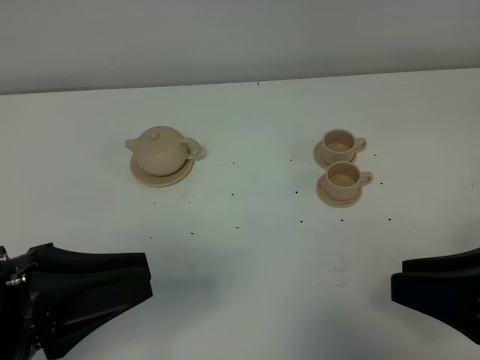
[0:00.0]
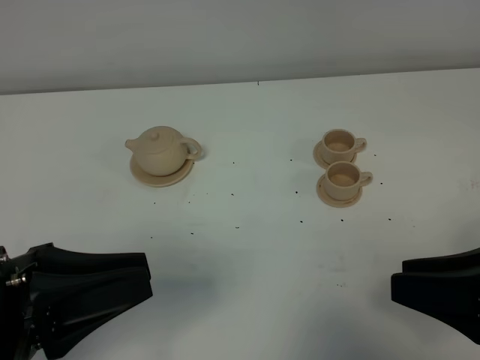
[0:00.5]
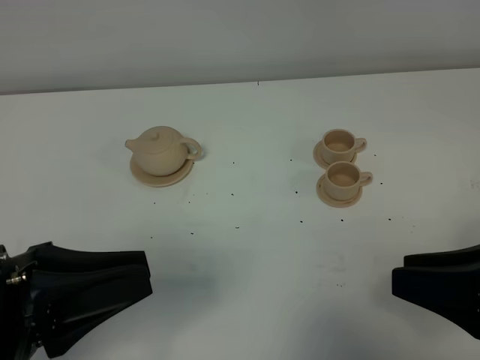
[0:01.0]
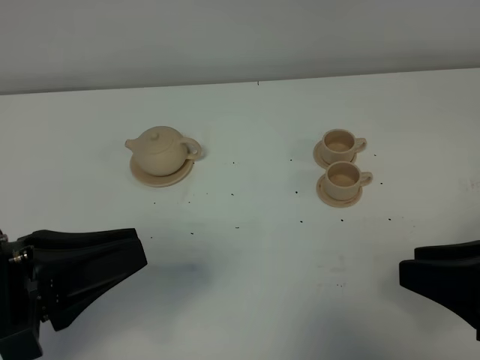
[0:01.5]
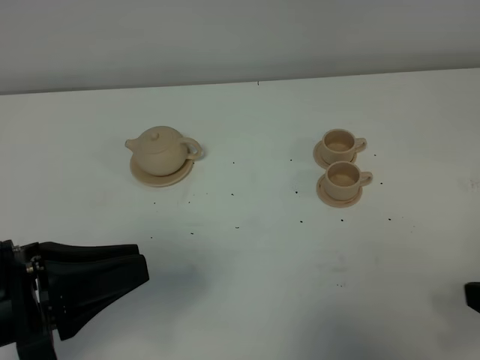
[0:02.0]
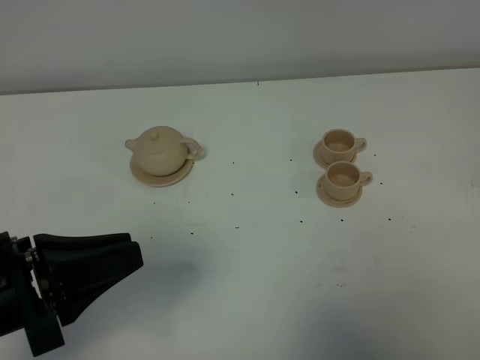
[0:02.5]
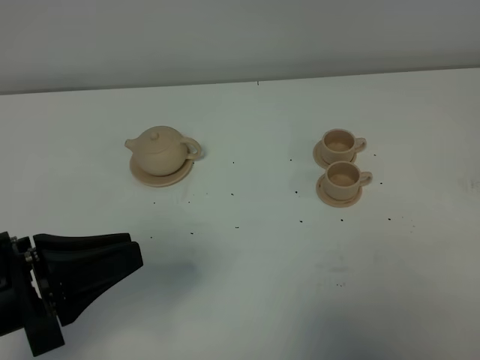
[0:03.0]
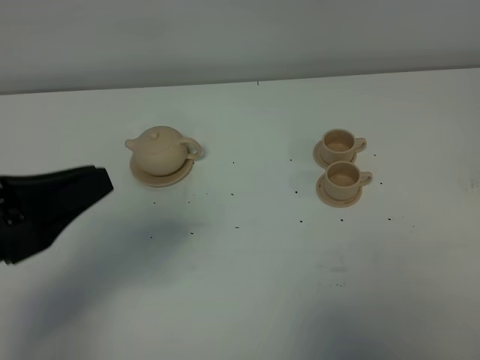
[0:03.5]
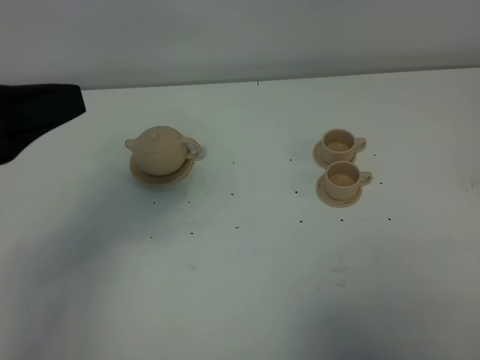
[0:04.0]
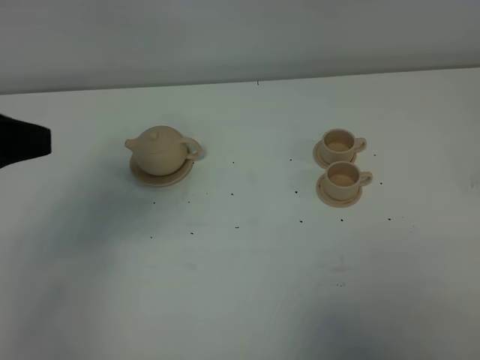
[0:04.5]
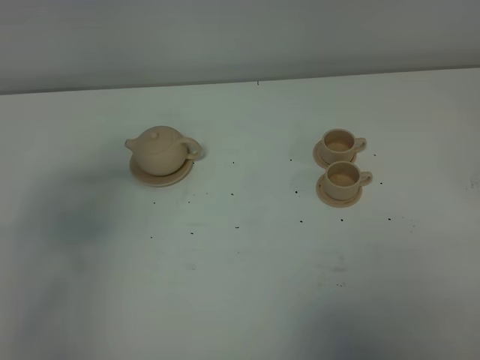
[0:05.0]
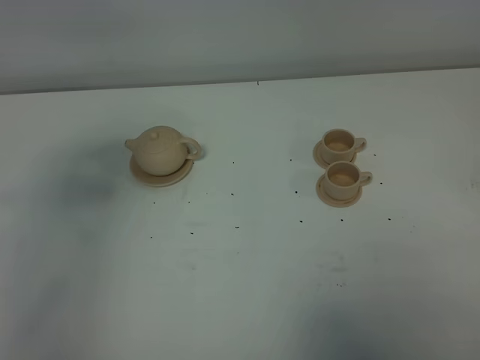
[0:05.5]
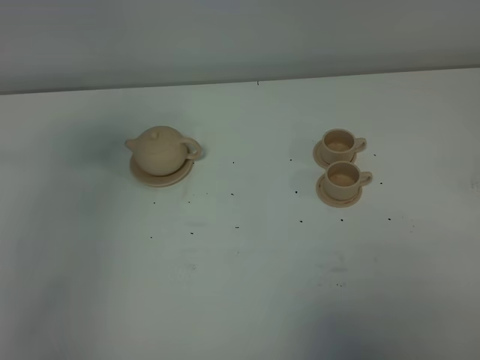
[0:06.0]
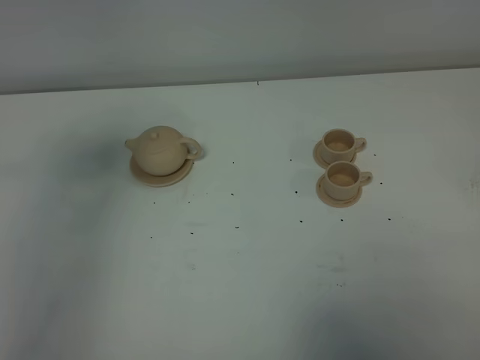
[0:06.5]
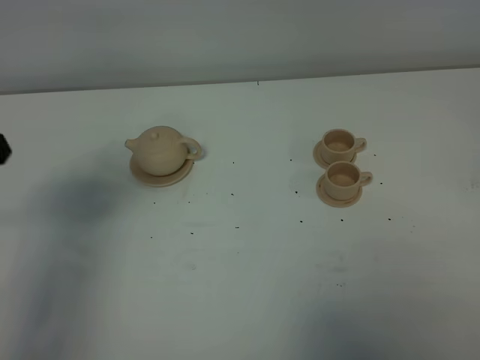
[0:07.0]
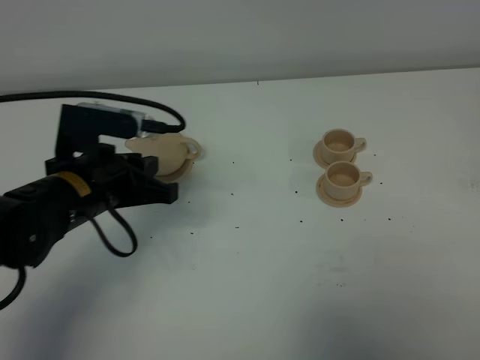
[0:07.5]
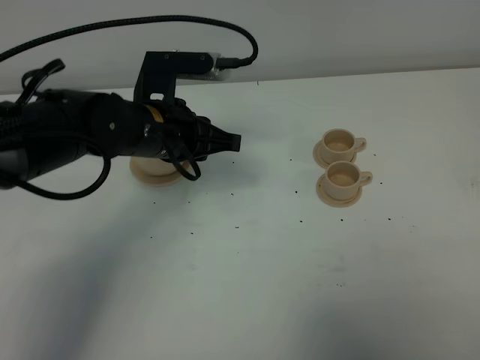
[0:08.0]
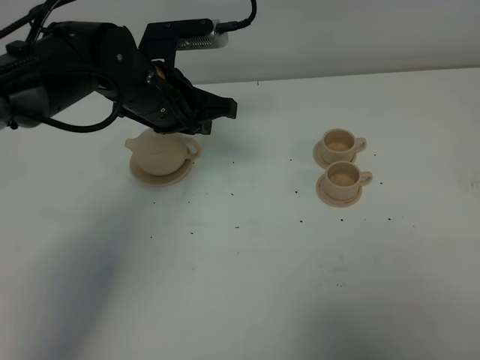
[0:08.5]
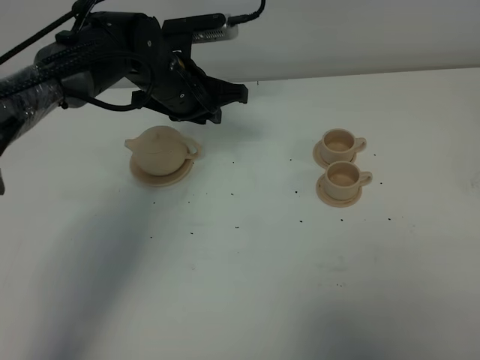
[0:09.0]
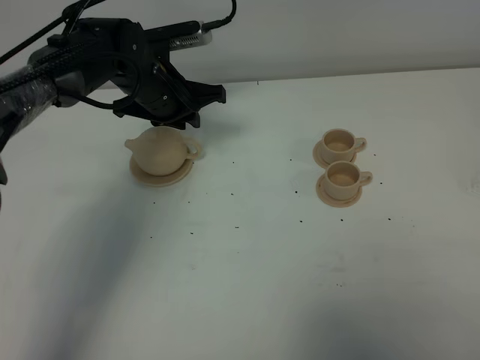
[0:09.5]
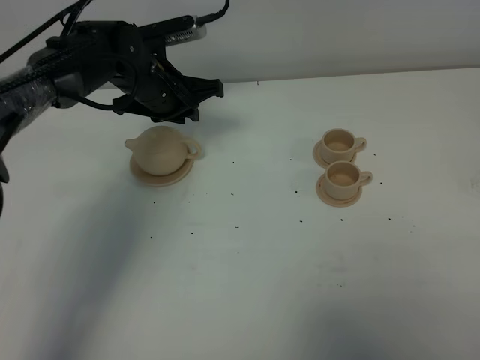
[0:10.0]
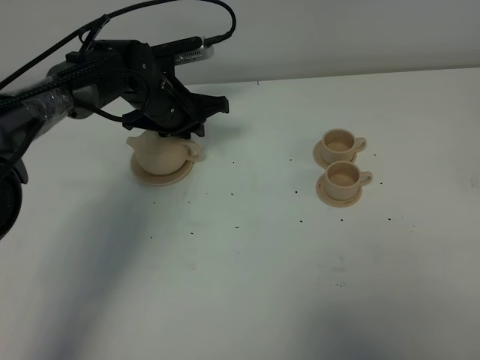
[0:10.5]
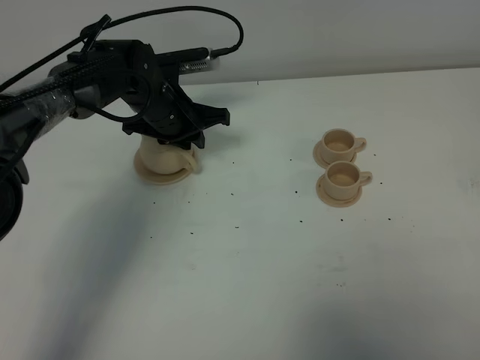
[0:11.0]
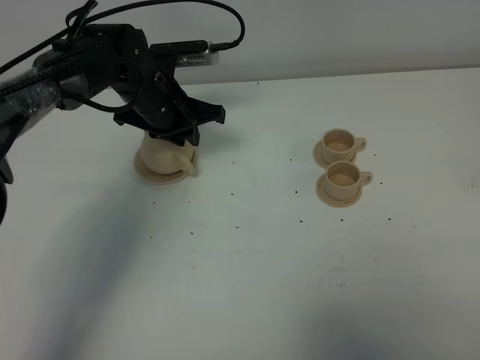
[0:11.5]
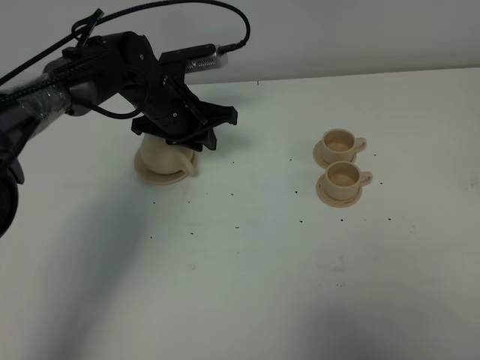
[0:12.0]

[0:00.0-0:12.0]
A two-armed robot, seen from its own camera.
Task of the whole recording: grasp the brown teapot and pour the tea into the two brown teacups one by one, put the brown teapot back in its original place.
2.0 to 4.0 s: The left gripper heads upward and forward, covering some 15 cm. The right gripper heads backward, covering about 10 cm.
4.0 to 6.0 s: The left gripper shifts some 10 cm upward and to the left.
6.0 to 8.0 s: The left gripper shifts approximately 30 cm downward, to the right and forward.
8.0 to 10.0 s: The left gripper travels forward by approximately 10 cm.
10.0 to 12.0 s: There are only small adjustments of the grippers.

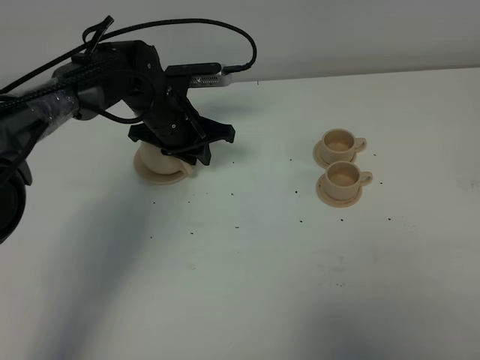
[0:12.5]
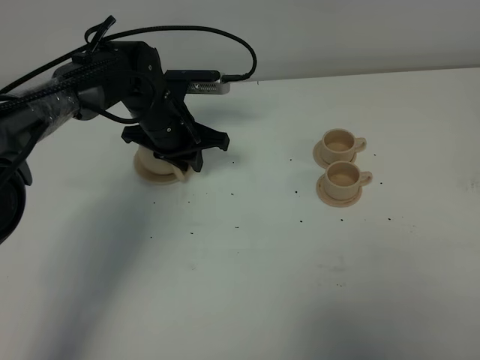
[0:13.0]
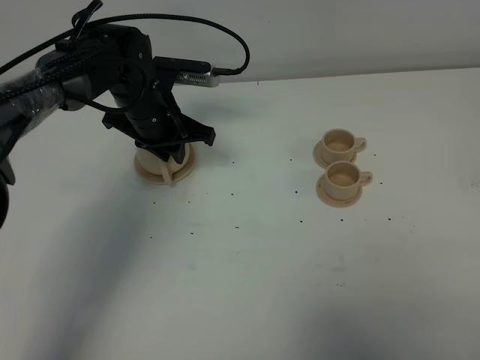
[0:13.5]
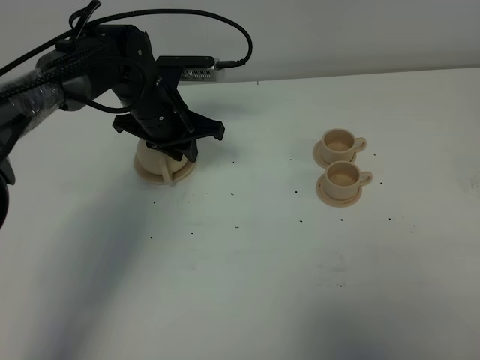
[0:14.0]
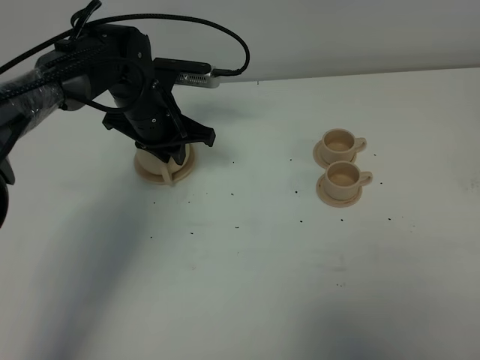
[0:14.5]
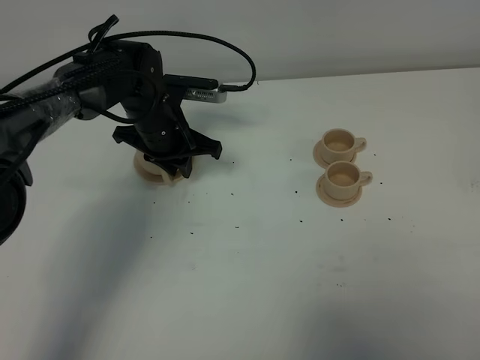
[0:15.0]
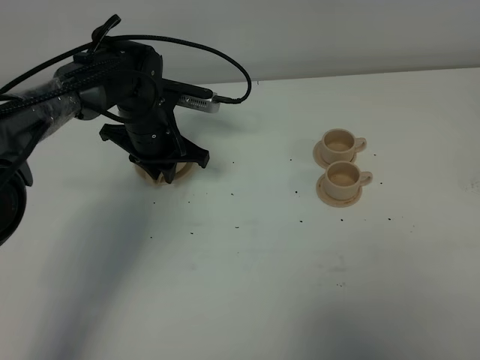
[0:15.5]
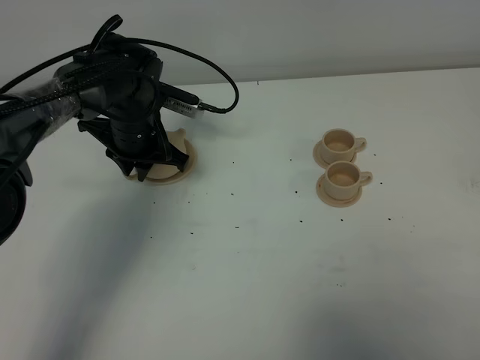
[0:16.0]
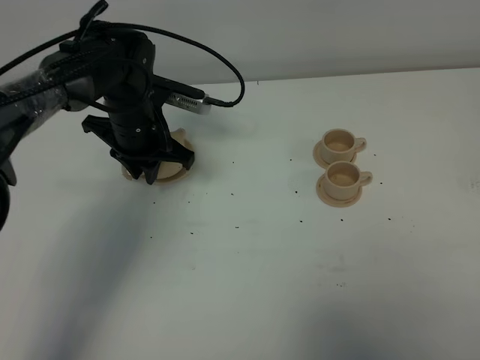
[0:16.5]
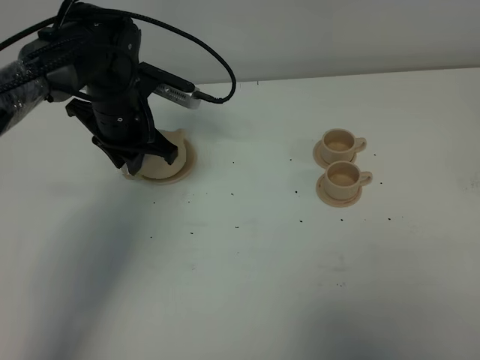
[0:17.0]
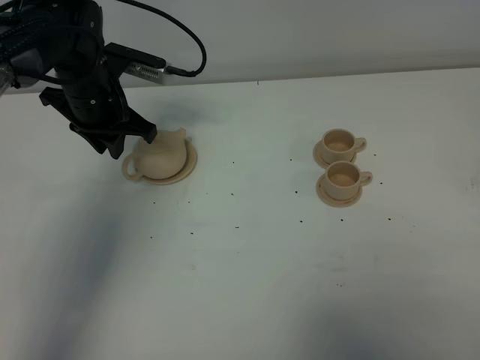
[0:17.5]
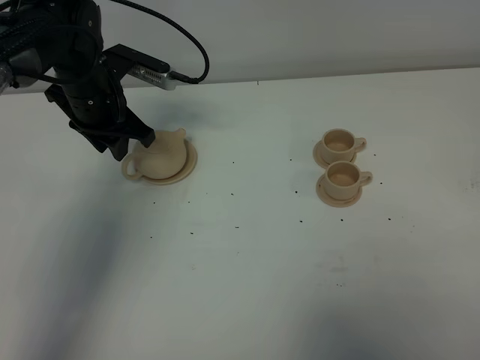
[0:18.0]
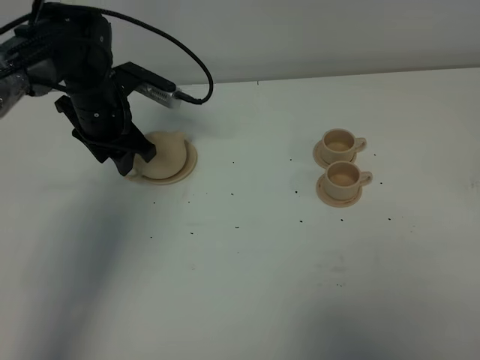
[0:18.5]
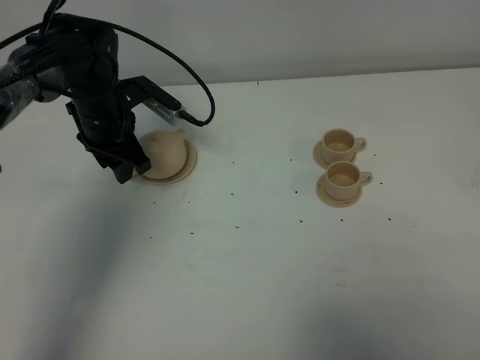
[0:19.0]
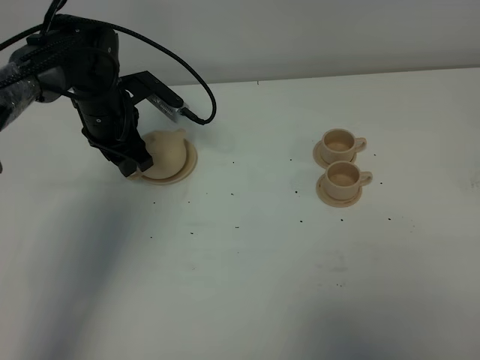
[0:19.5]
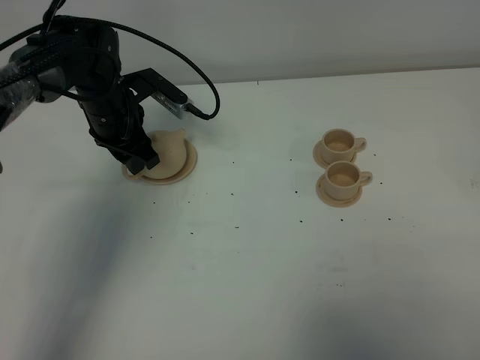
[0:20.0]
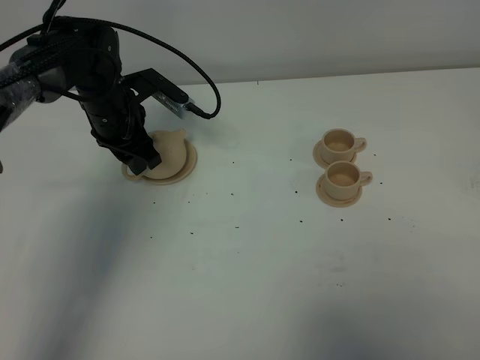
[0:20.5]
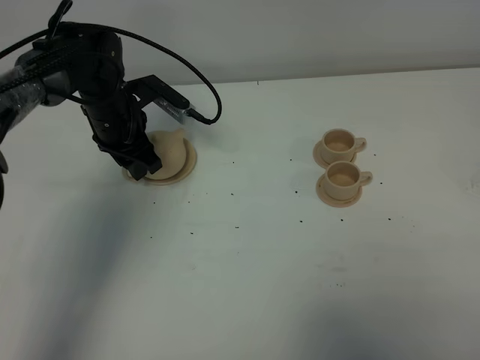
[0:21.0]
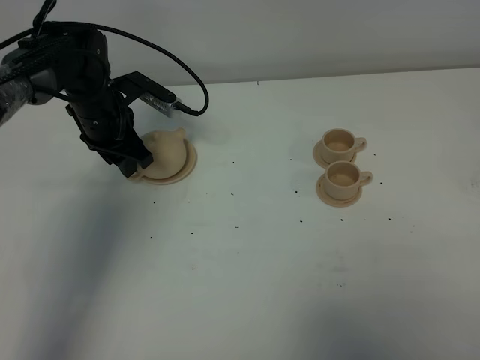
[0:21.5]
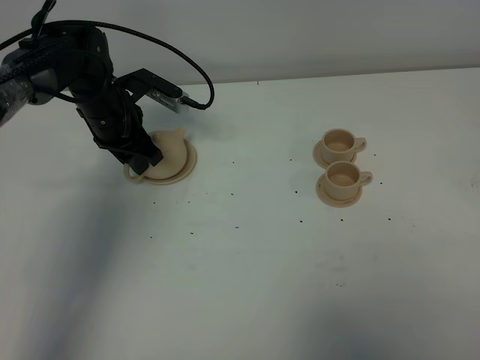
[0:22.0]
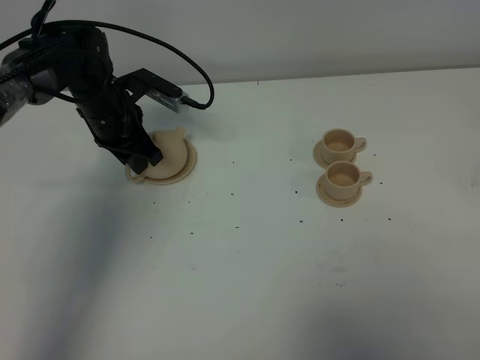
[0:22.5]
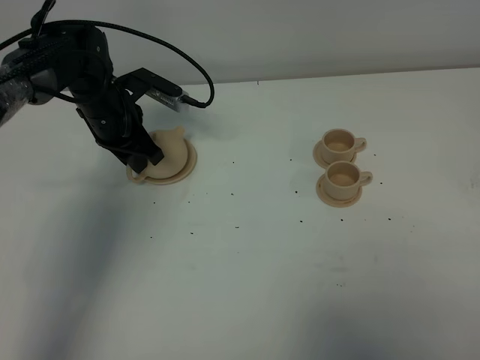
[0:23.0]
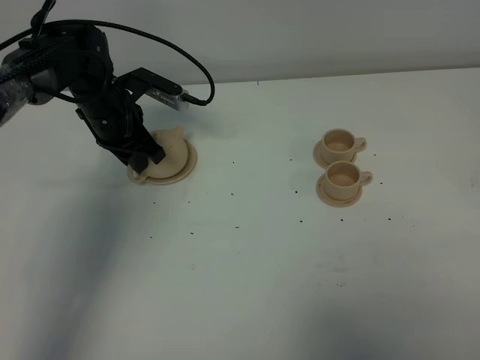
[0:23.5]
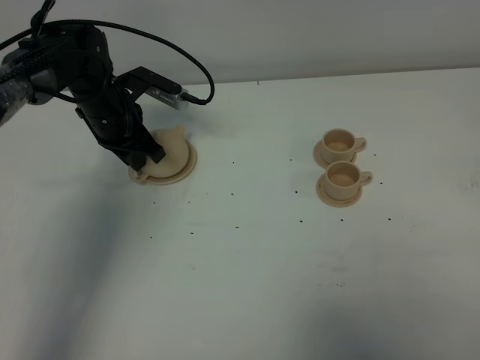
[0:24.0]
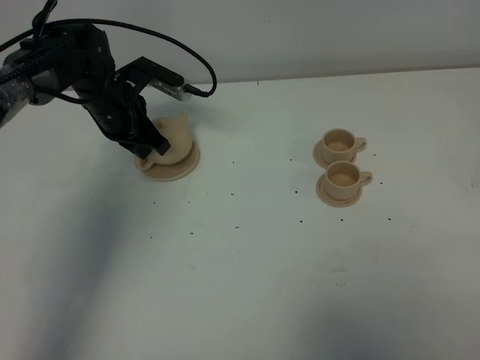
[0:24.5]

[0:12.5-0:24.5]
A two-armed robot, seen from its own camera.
Task of the whole recording: grasp the brown teapot and pour the tea into the two brown teacups one by one, put the brown teapot back in its original place.
Step, 12.5 to 24.5 s: Pick up the teapot with the left gripper.
12.5 to 14.5 s: The grippers stay close to where they were, moving slightly.
14.5 to 16.5 s: There are only small adjustments of the grippers.
16.5 to 18.5 s: The left gripper opens.
18.5 to 20.5 s: The grippers stay close to where they were, moving slightly.
20.5 to 22.5 s: The left gripper closes.
22.5 to 24.5 s: The left gripper closes.

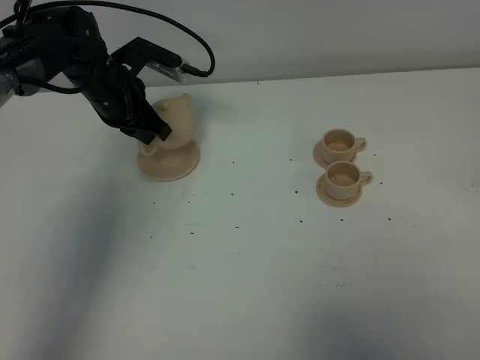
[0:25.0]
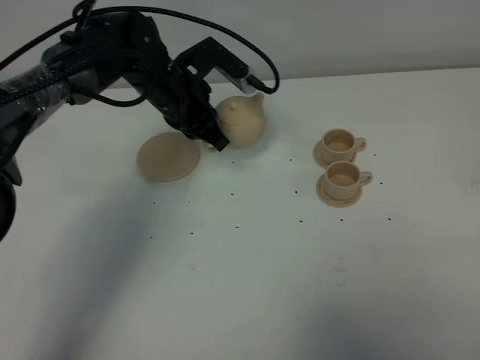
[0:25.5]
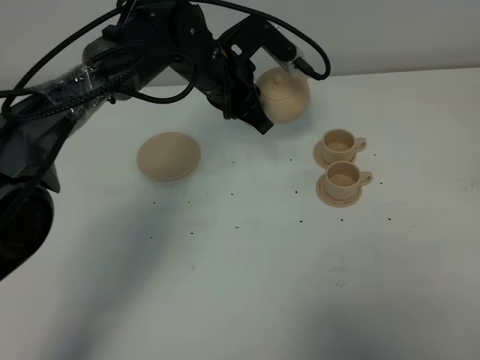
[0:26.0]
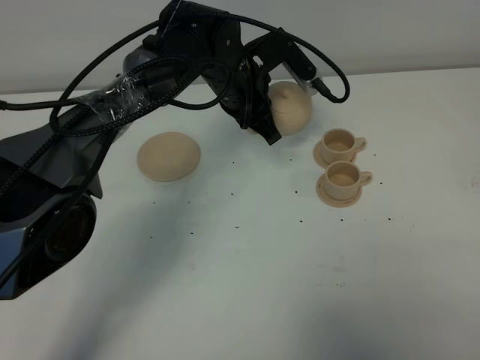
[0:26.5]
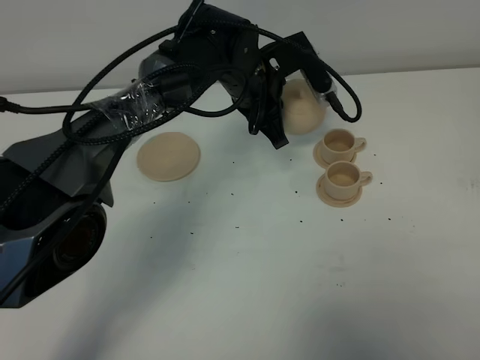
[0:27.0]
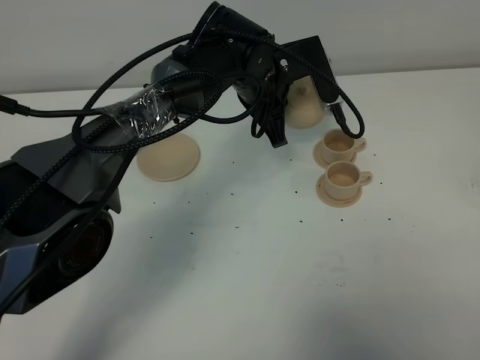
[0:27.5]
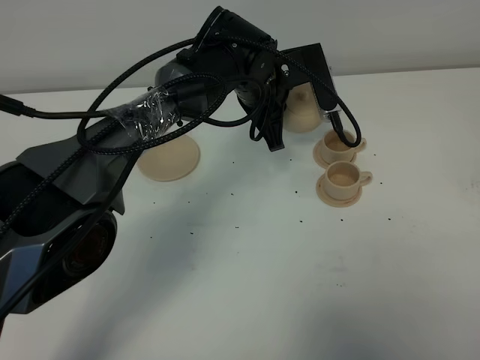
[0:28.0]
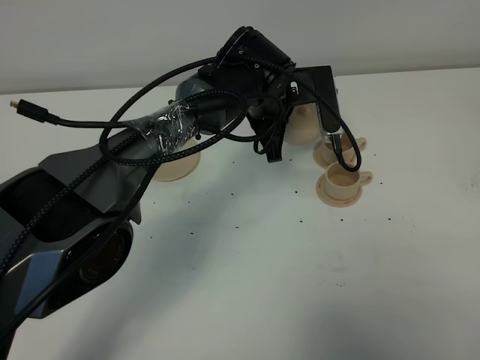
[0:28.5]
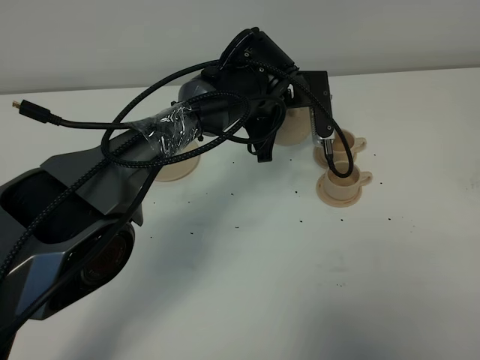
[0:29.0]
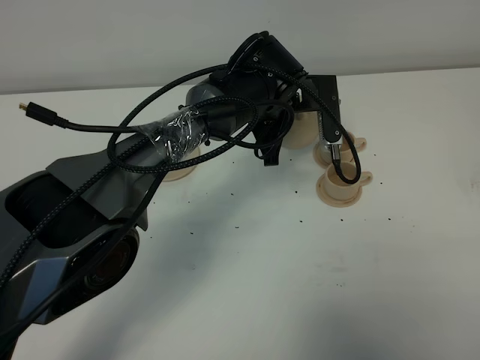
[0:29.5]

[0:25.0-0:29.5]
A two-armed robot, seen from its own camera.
Task of the whole recording: grasp the brown teapot and pour the tea into the two brown teacups one by one, put the brown teapot back in its original place.
25.0 to 27.0 s: The left gripper moves to the right, roughly 20 cm.
